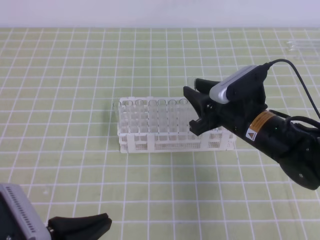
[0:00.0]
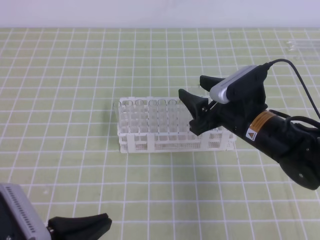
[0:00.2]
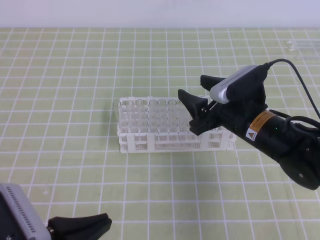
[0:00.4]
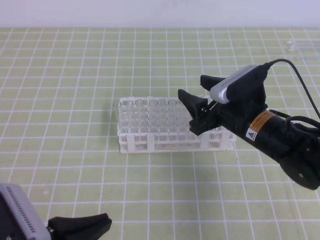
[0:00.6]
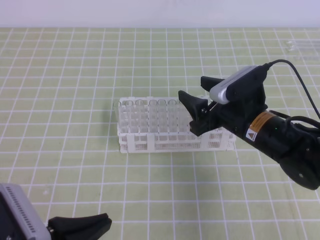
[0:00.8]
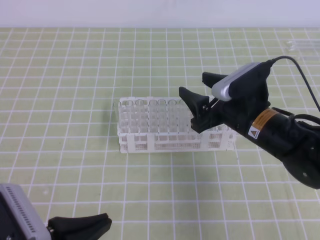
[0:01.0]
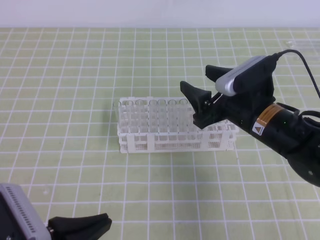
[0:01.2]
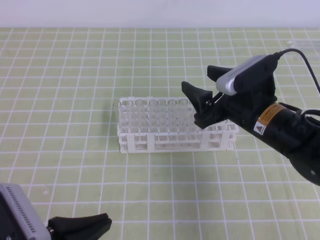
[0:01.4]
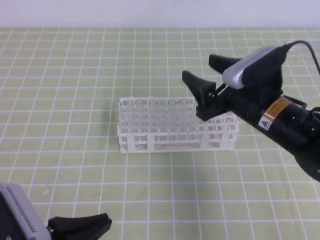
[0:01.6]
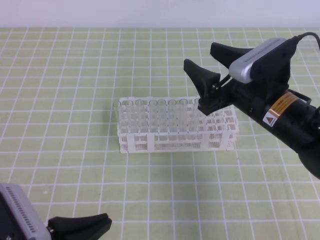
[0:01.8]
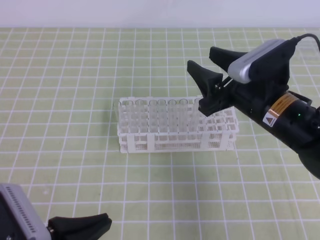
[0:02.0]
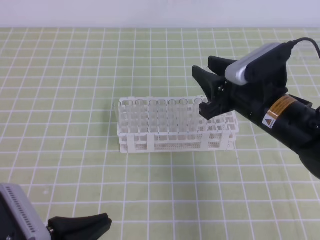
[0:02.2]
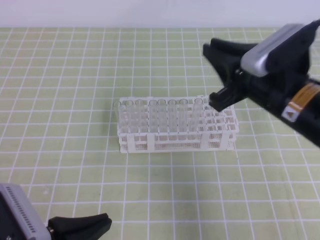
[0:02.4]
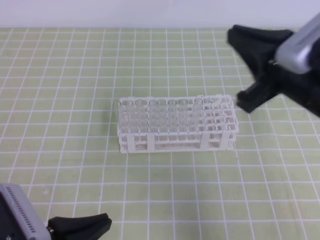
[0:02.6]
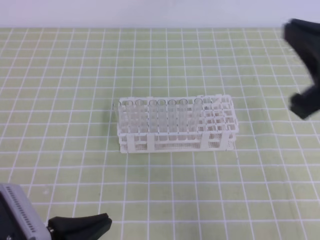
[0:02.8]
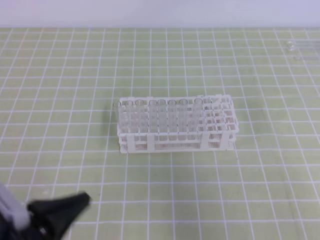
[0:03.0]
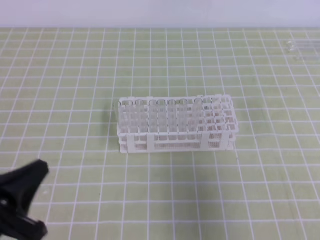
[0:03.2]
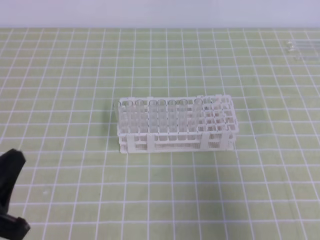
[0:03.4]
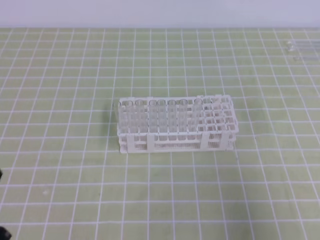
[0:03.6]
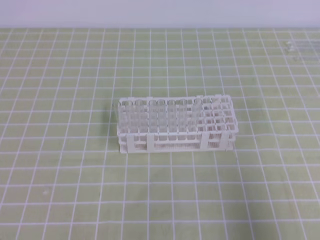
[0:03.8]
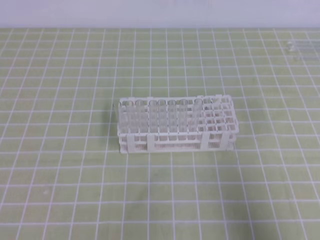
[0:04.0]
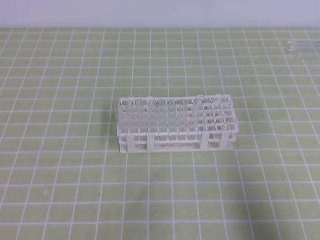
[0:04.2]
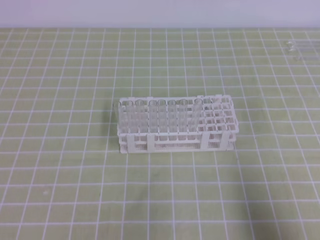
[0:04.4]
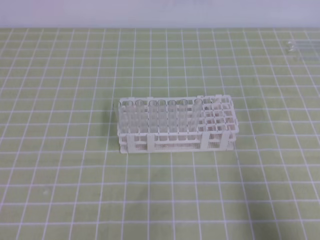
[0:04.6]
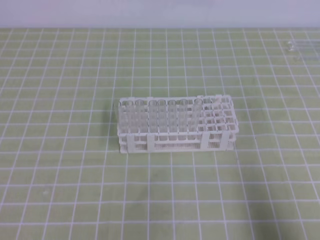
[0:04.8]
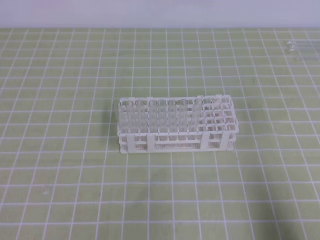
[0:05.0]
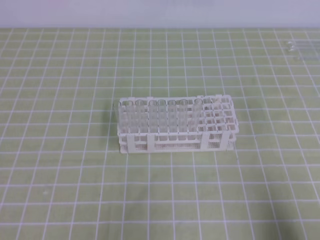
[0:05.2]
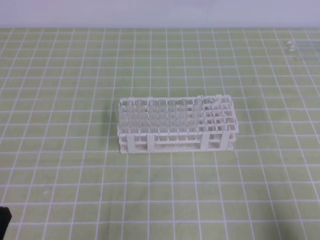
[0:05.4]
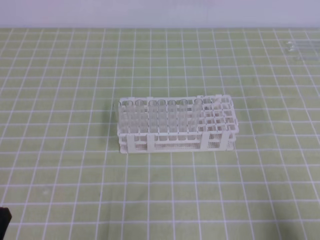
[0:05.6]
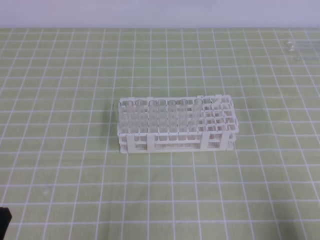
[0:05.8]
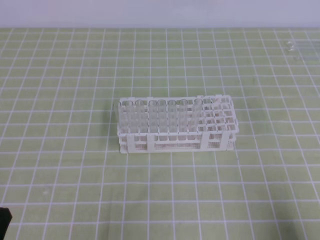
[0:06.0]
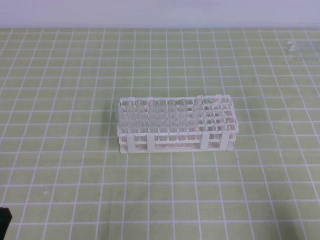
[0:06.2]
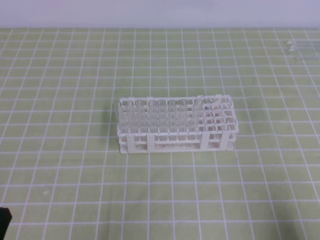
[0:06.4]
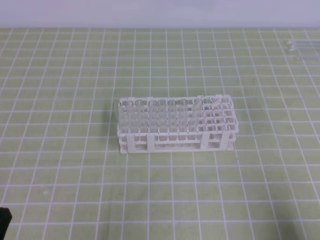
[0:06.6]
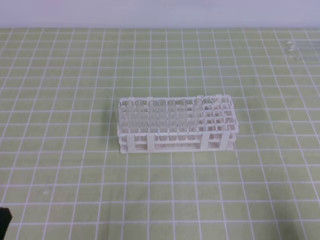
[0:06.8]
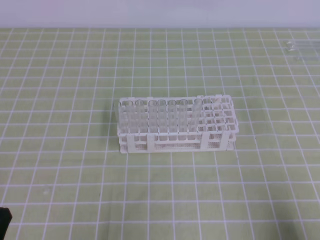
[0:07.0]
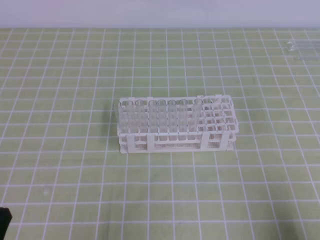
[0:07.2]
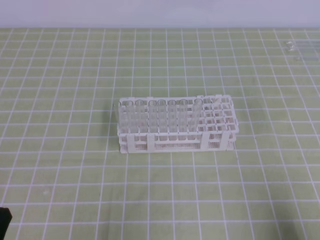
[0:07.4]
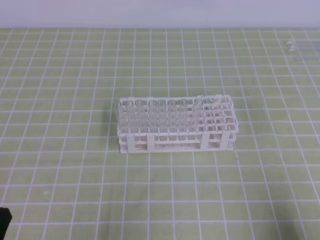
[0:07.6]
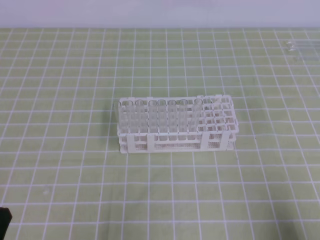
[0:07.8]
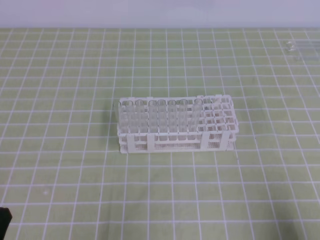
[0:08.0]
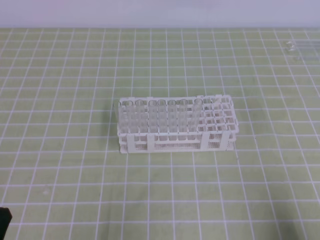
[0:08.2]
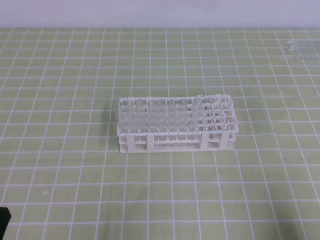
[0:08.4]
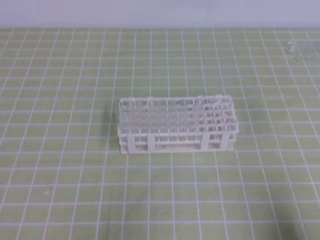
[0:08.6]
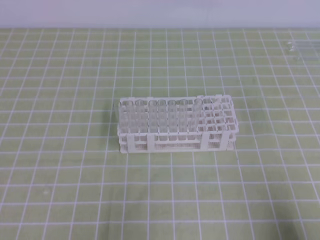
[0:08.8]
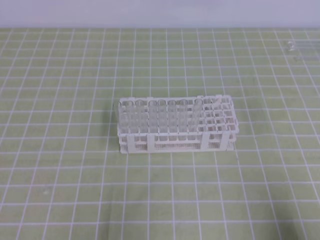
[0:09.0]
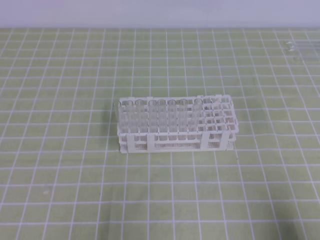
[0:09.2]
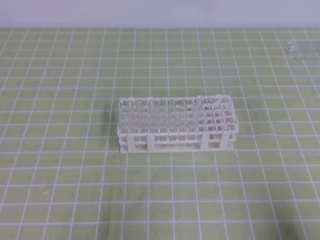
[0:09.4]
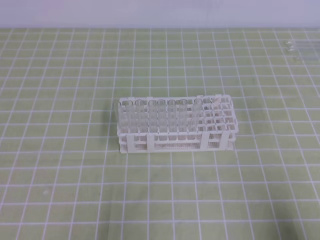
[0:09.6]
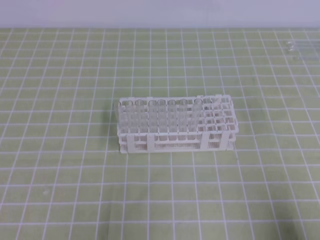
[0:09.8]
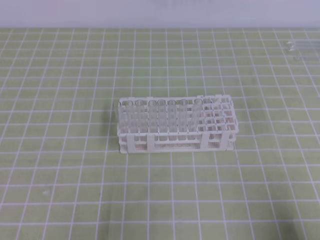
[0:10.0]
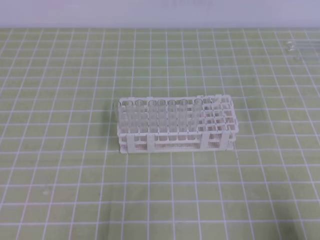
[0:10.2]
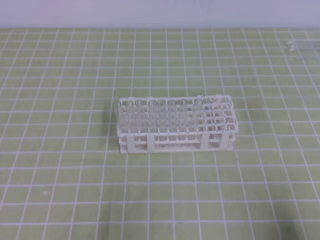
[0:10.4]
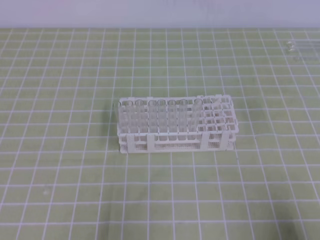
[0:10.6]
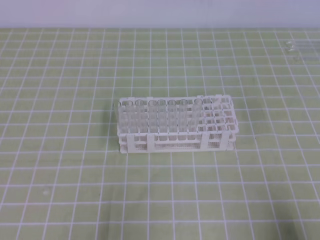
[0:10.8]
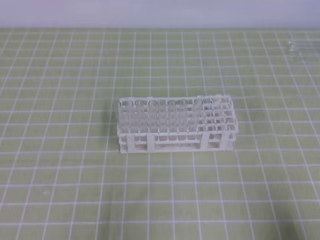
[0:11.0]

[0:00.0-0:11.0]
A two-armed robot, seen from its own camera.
0:00.0 to 0:01.6: The right gripper opens up.
0:01.6 to 0:03.2: The right gripper shifts about 25 cm backward, to the right and upward, and closes up.
0:03.2 to 0:04.8: The right gripper heads downward, covering approximately 15 cm, while the left gripper shifts about 5 cm to the left.
0:06.2 to 0:07.8: Both grippers stay put.
0:09.4 to 0:11.0: Both grippers stay put.
